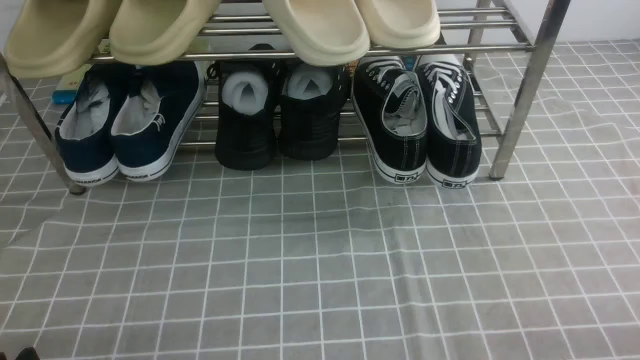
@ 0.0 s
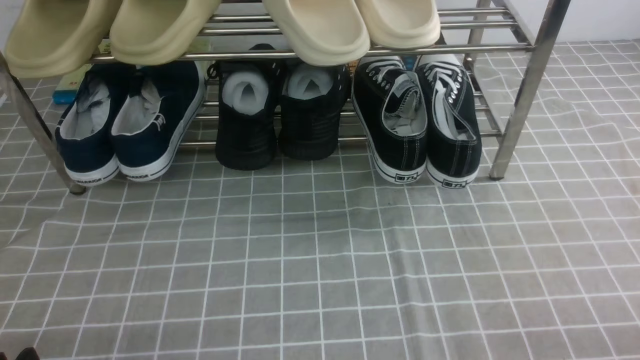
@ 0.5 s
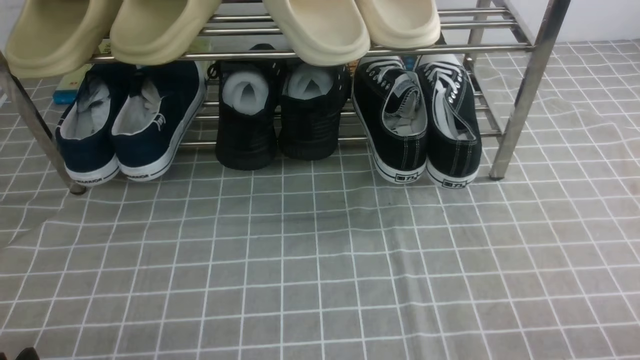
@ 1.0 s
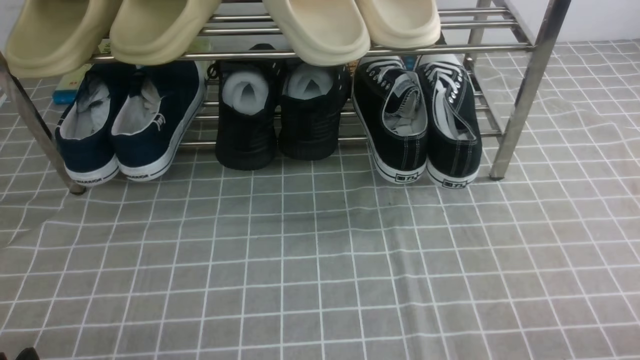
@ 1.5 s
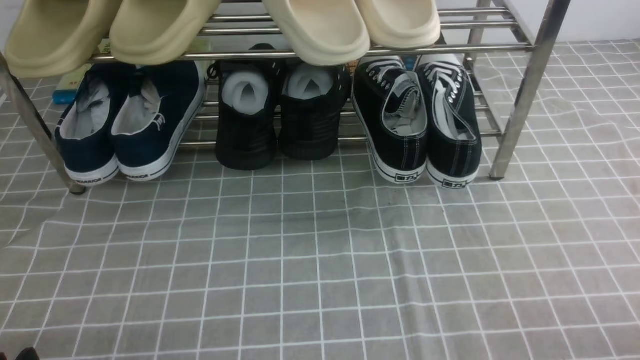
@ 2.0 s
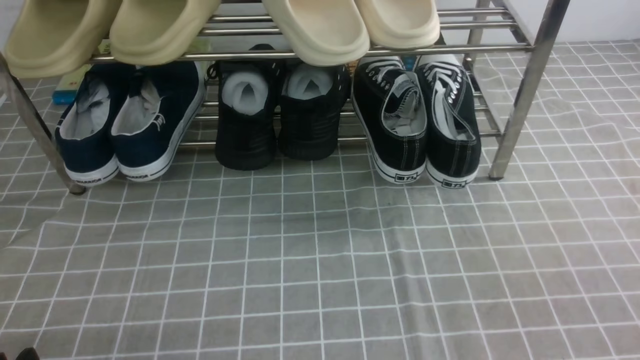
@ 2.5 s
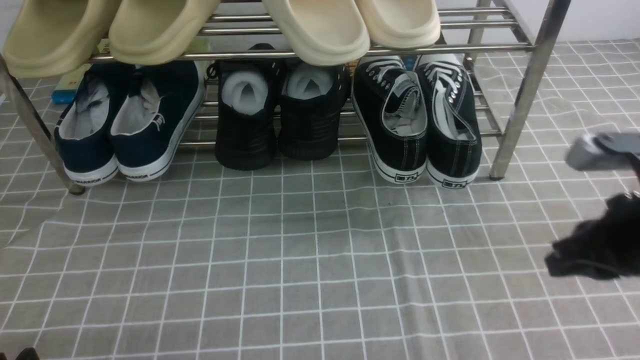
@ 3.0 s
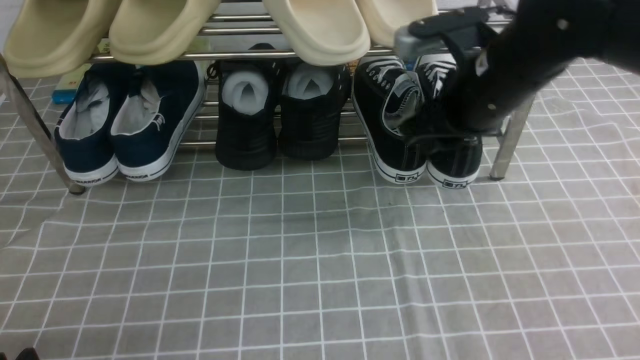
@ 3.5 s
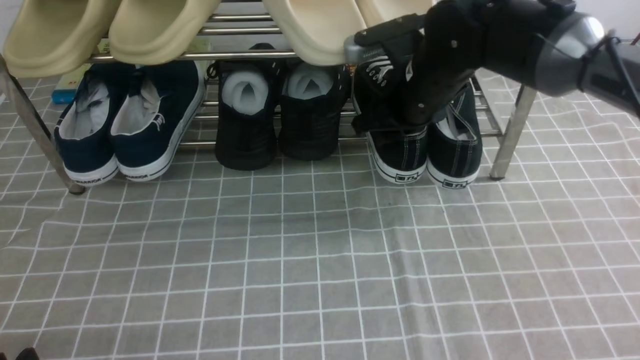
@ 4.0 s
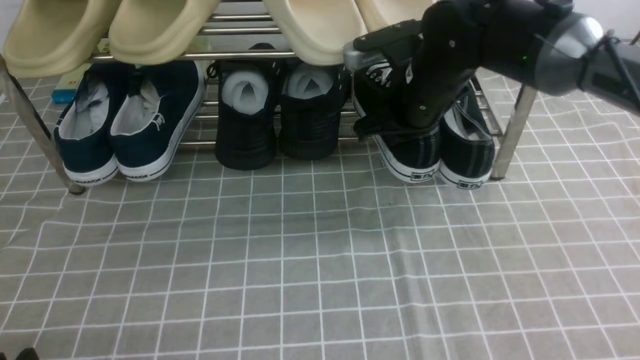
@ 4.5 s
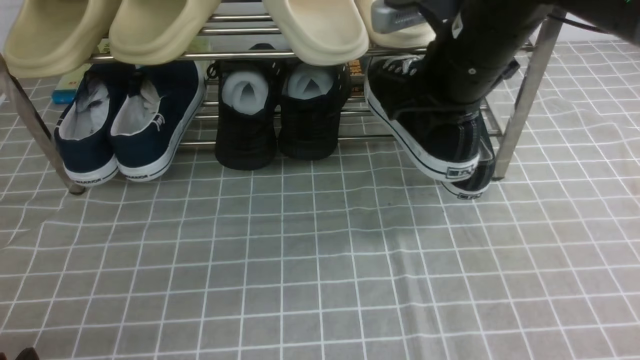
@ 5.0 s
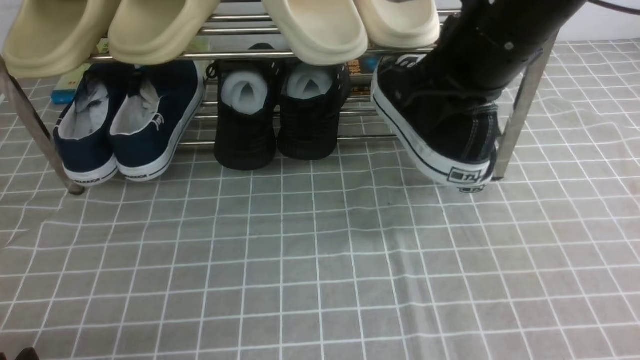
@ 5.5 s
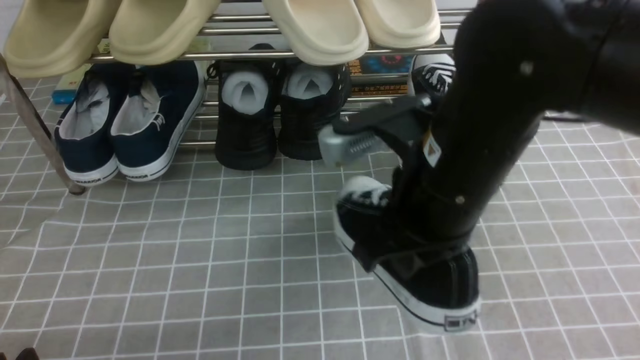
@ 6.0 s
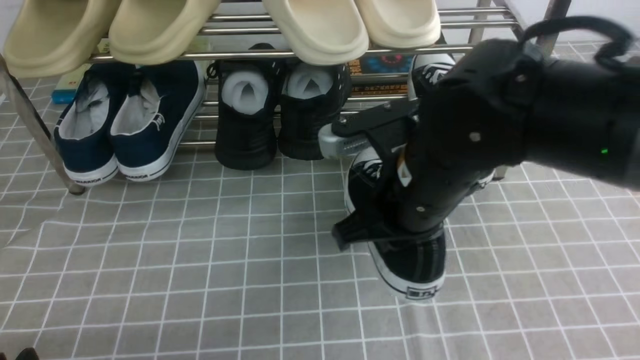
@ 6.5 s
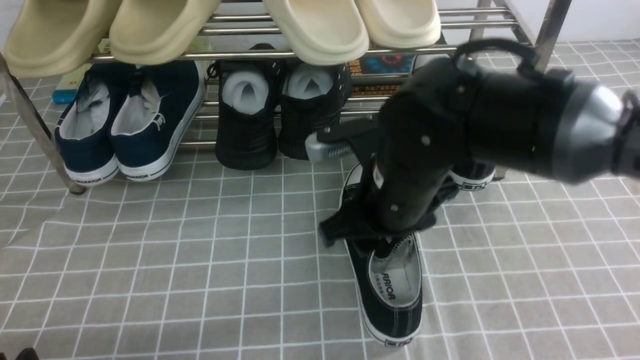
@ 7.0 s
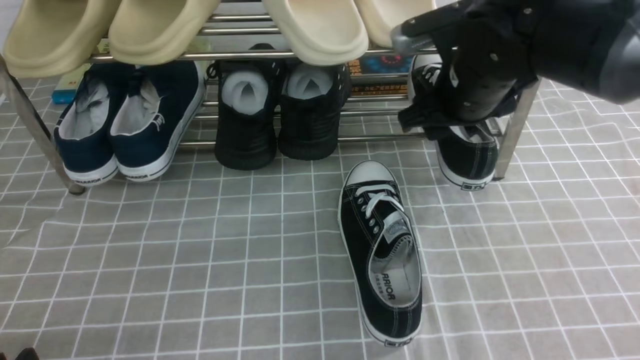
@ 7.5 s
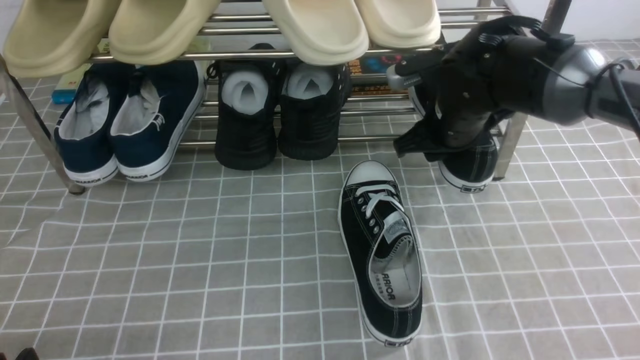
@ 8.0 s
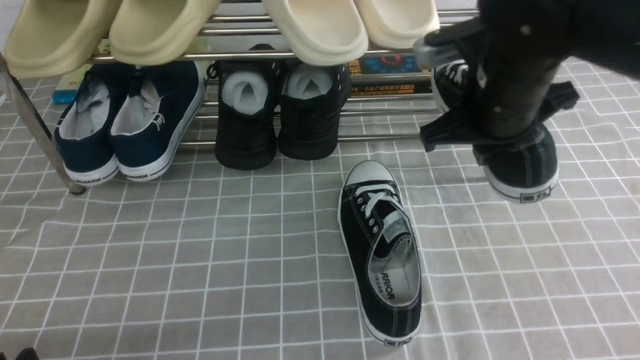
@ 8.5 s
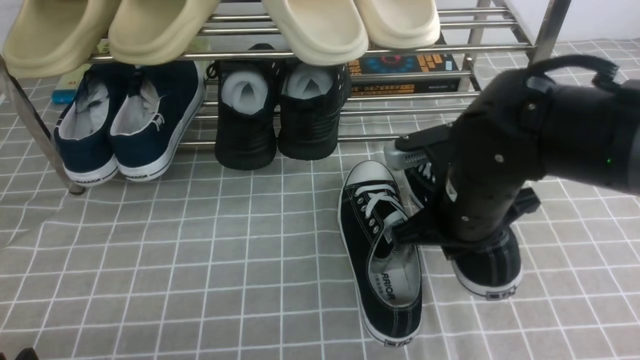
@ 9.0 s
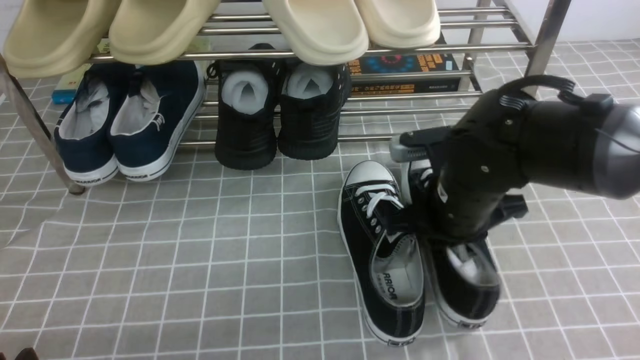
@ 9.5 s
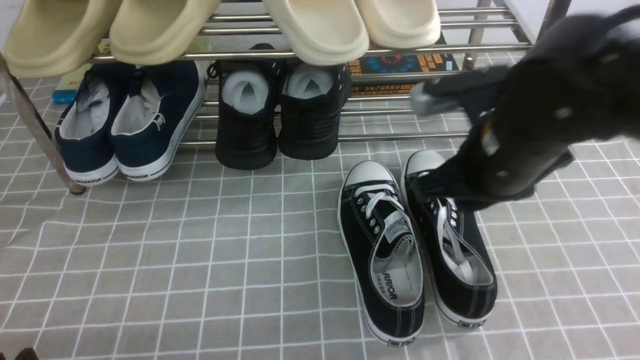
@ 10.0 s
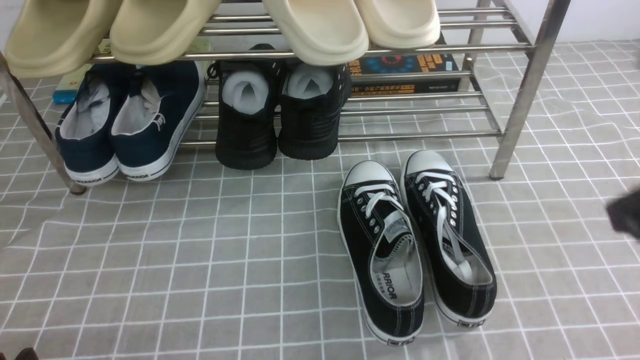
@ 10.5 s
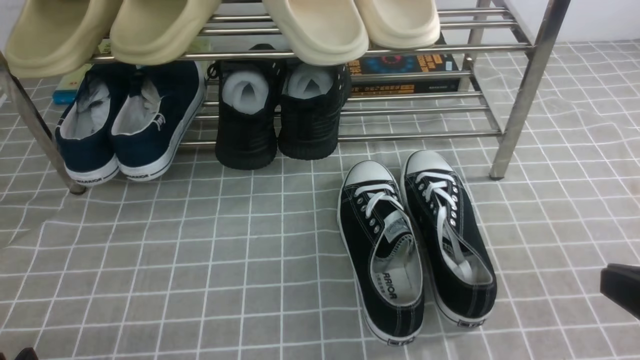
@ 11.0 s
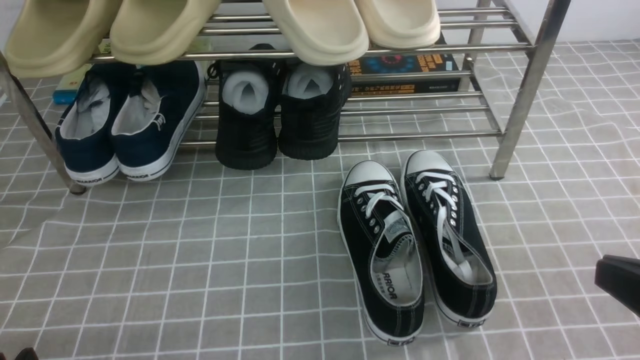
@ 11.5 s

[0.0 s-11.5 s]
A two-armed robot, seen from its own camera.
Step, 0.0 to 4.5 s: use the right arm to clamp a shoe on the right side of the shoe rack.
Step, 5.0 to 7.0 s: use the right arm to take out the clamped shoe from the shoe rack and put it down.
Step, 7.5 to 8.0 s: use the right arm to clamp a shoe on the right side of the shoe rack.
Step, 8.5 to 10.0 s: use the right arm to take out the clamped shoe from the shoe rack and put it down.
2.0 to 4.0 s: The right gripper goes about 40 cm forward and to the left, and closes, then reopens.
4.0 to 6.0 s: The right gripper is displaced backward by roughly 15 cm, and closes its fingers.
6.0 to 7.5 s: The right gripper is displaced forward by approximately 15 cm, and opens its fingers.
7.5 to 9.5 s: The right gripper shifts approximately 10 cm backward and downward, and closes its fingers.
9.5 to 11.5 s: The right gripper moves backward and to the right, approximately 25 cm, and closes.

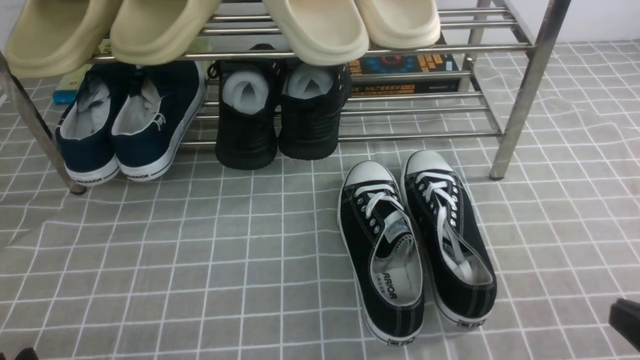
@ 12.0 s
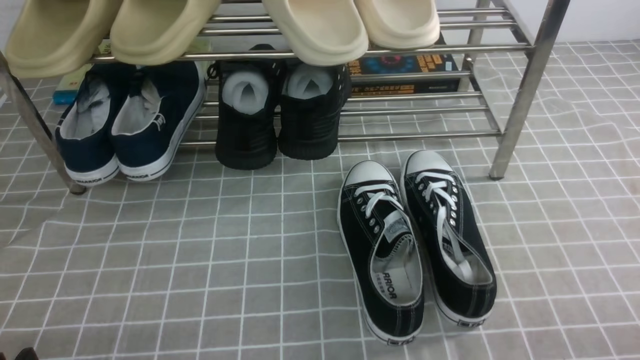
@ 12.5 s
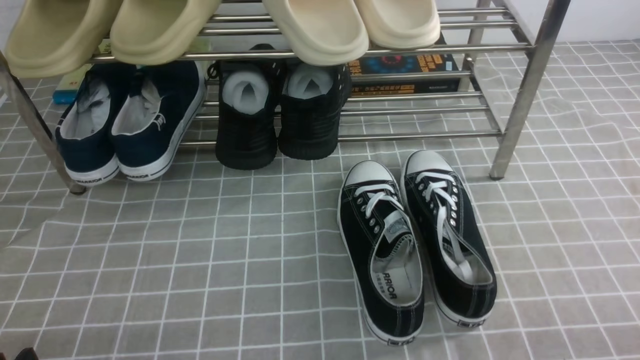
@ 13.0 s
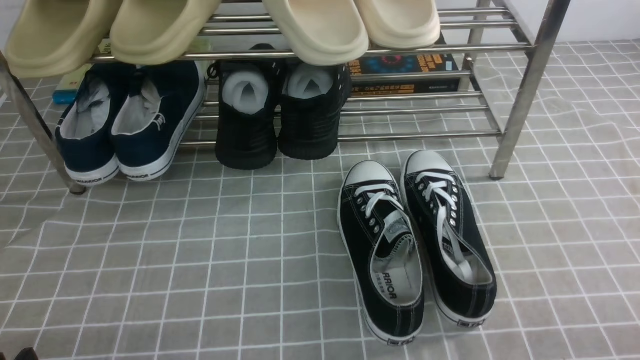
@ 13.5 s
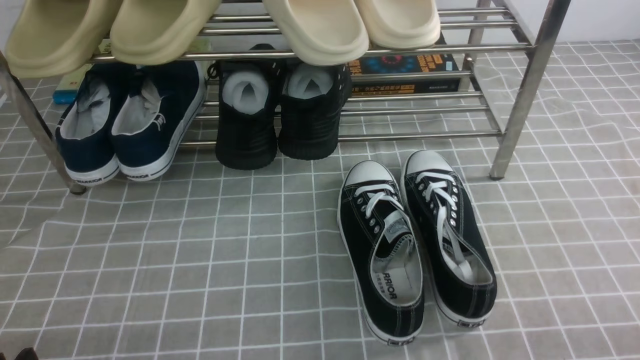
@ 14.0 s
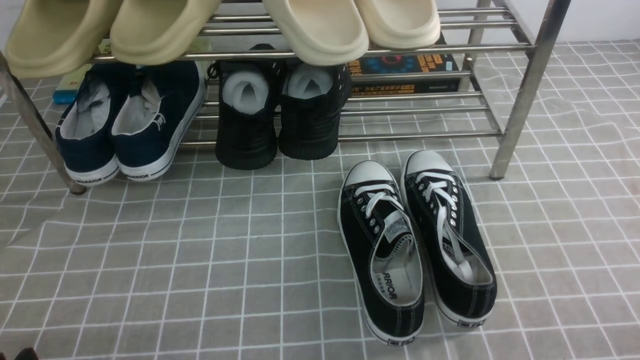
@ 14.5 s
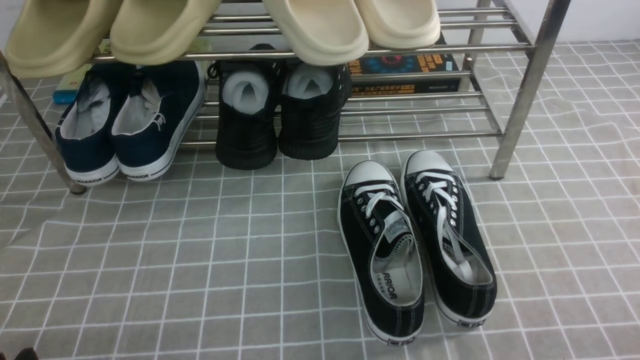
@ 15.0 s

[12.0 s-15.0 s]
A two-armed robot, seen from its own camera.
13.5 to 15.0 s: Both grippers stay about where they are.
